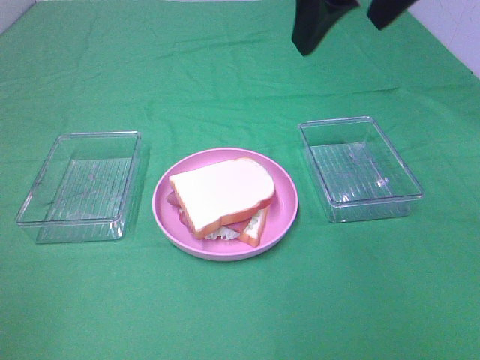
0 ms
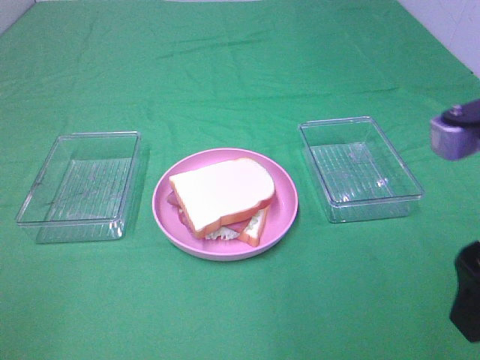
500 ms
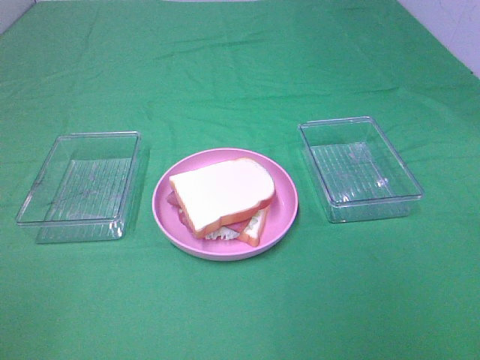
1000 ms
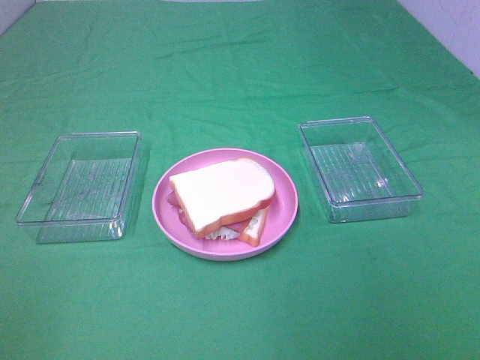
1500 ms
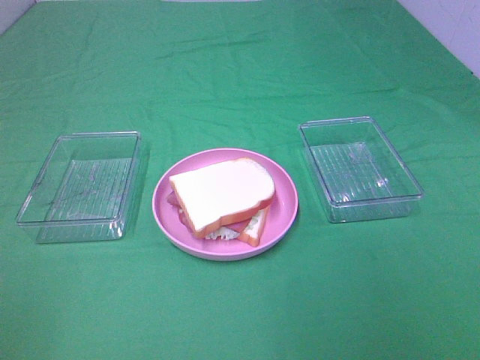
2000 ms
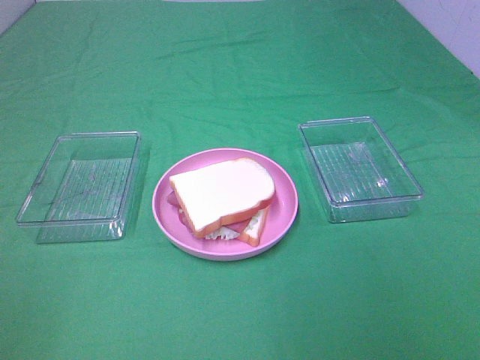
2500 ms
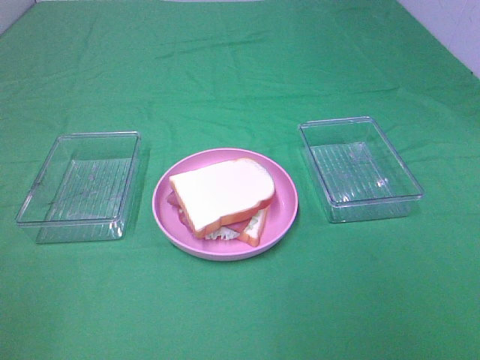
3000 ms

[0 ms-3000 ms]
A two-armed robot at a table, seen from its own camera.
Task of the whole recording: Make sandwiches.
0 ms to 1500 ms: The right gripper travels backward and to the right by about 30 cm.
